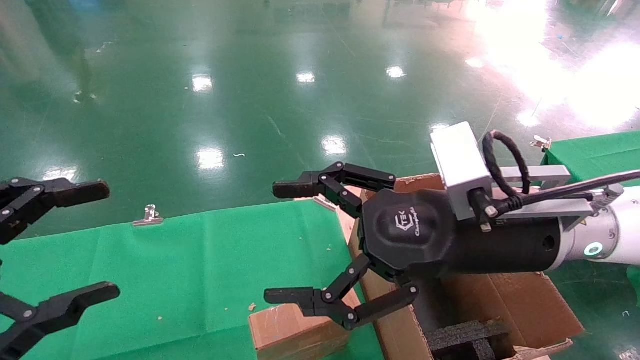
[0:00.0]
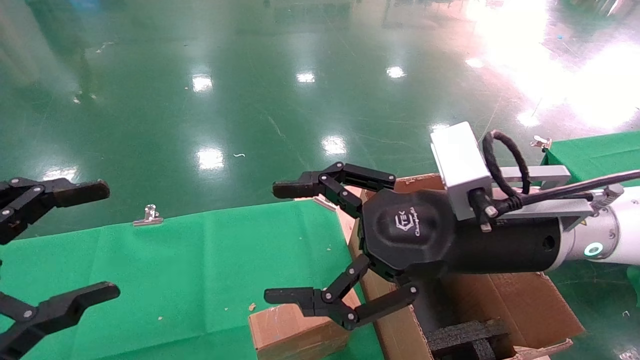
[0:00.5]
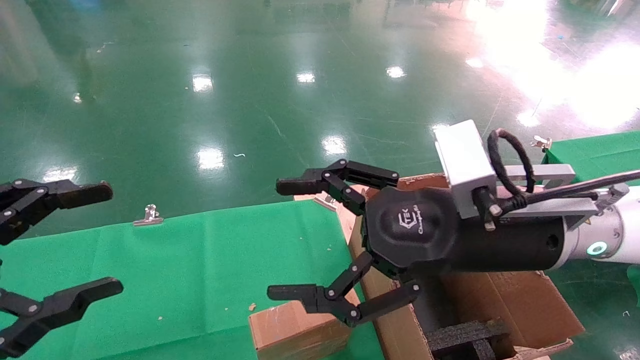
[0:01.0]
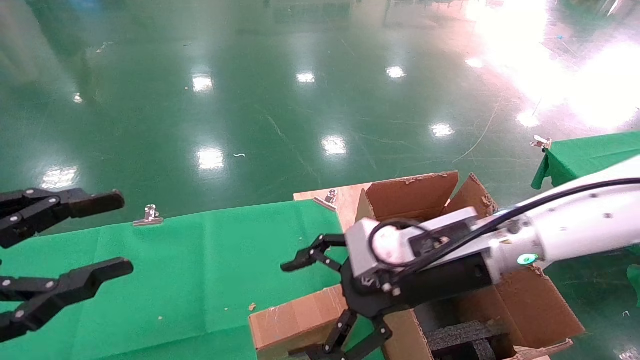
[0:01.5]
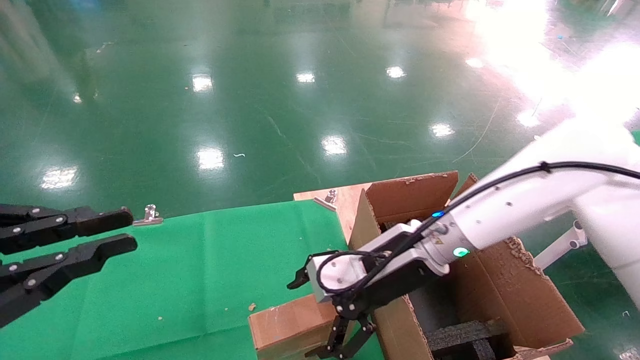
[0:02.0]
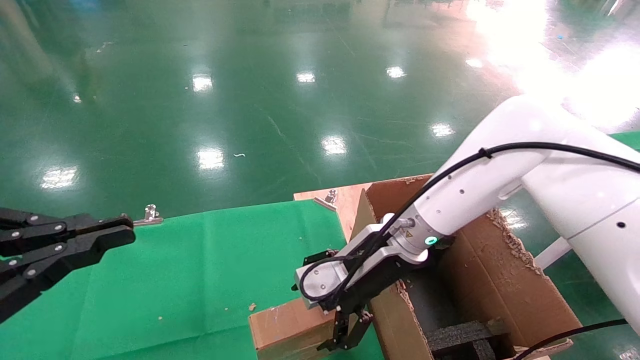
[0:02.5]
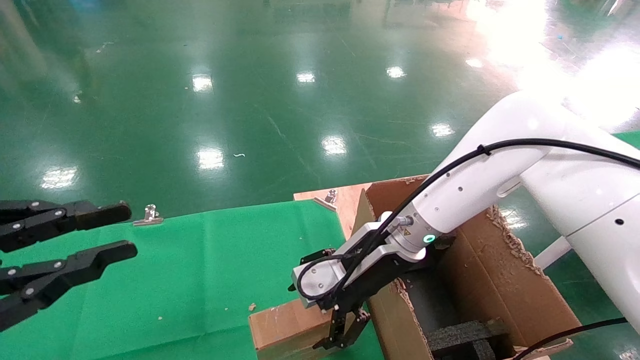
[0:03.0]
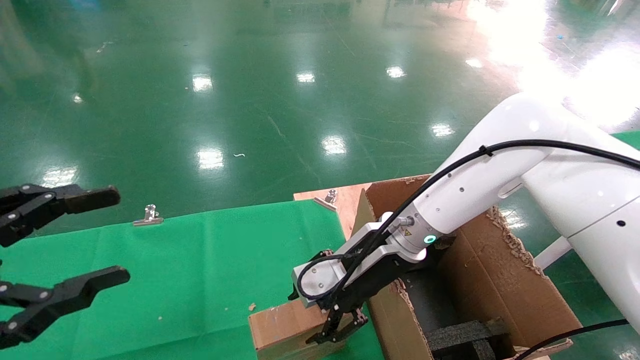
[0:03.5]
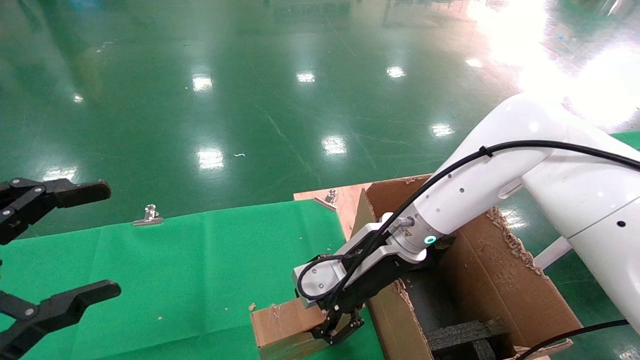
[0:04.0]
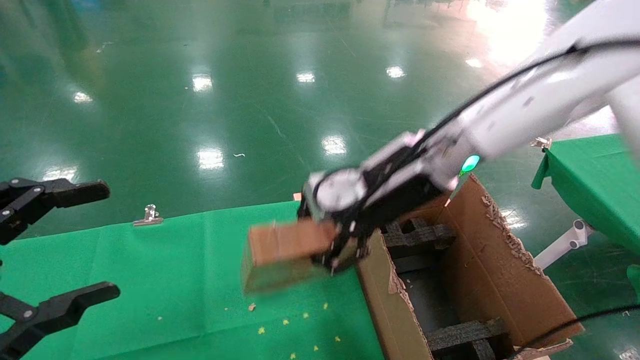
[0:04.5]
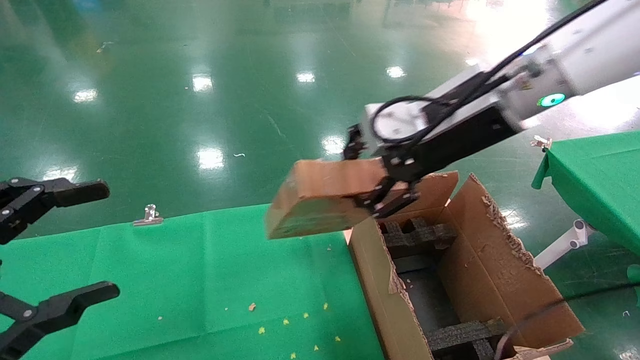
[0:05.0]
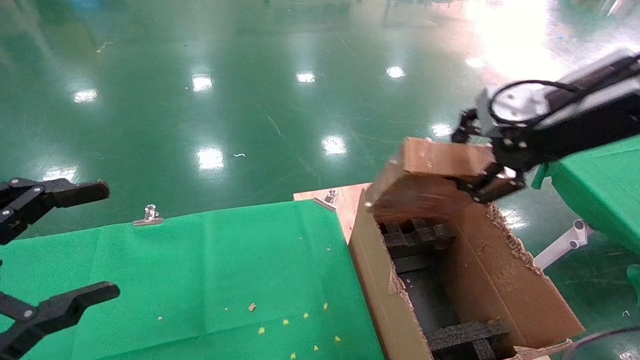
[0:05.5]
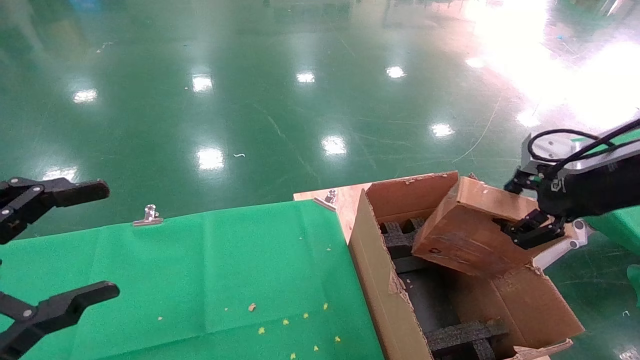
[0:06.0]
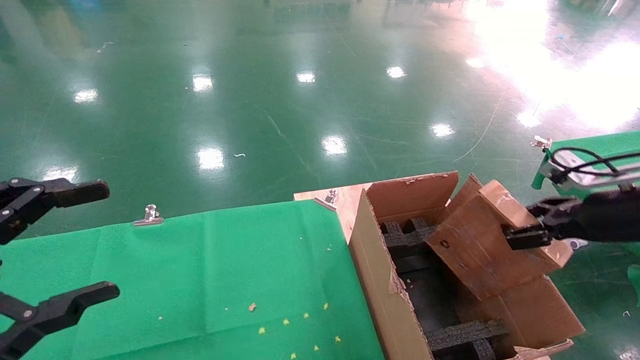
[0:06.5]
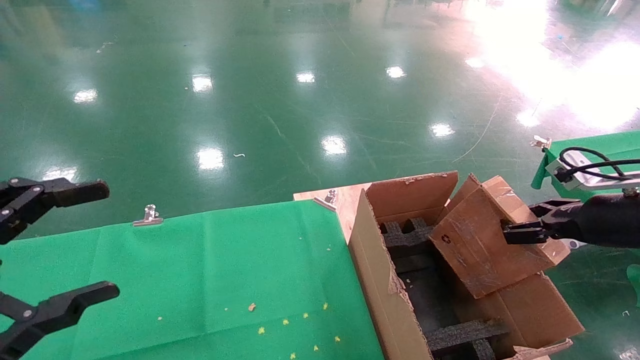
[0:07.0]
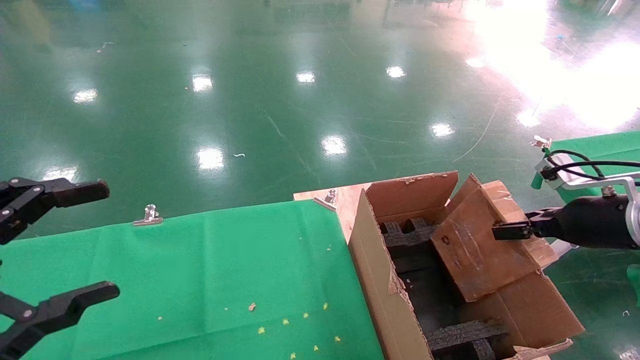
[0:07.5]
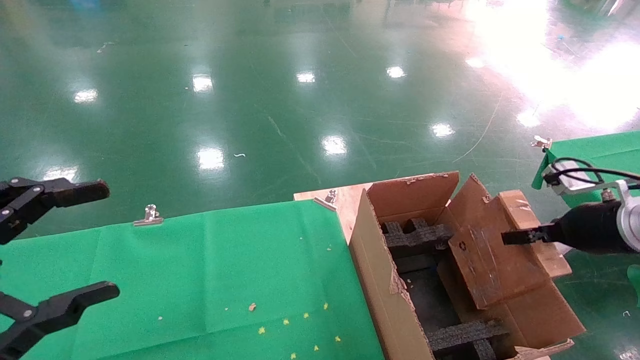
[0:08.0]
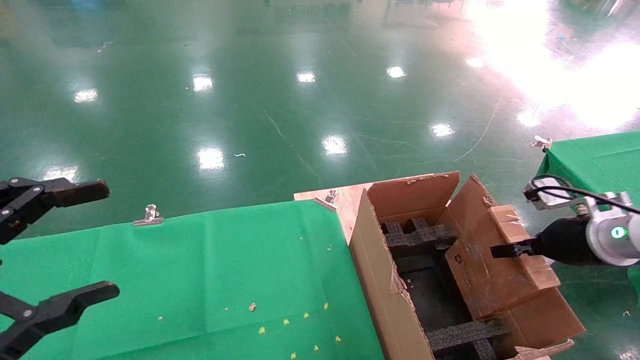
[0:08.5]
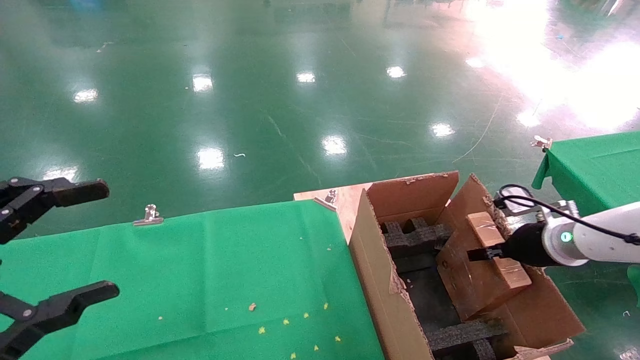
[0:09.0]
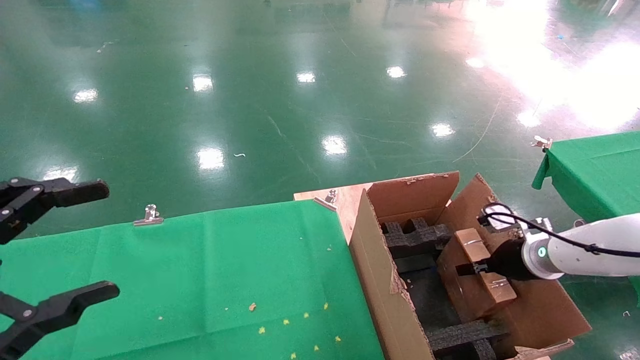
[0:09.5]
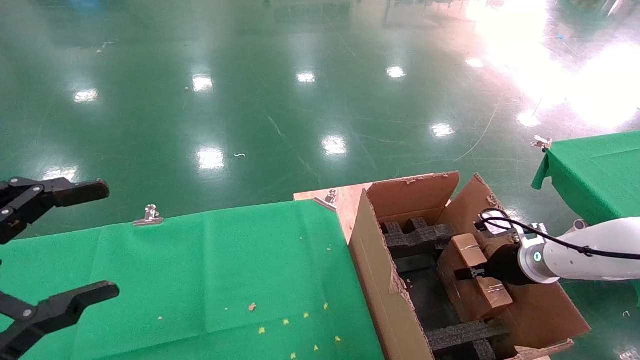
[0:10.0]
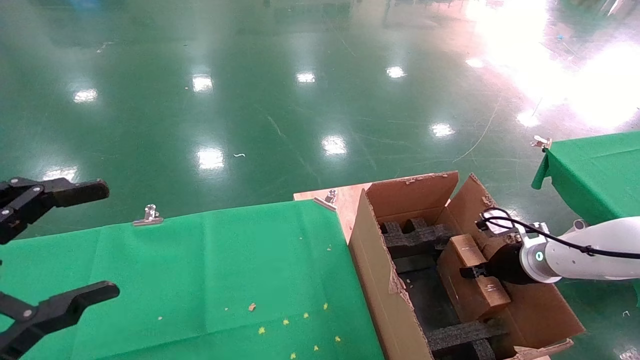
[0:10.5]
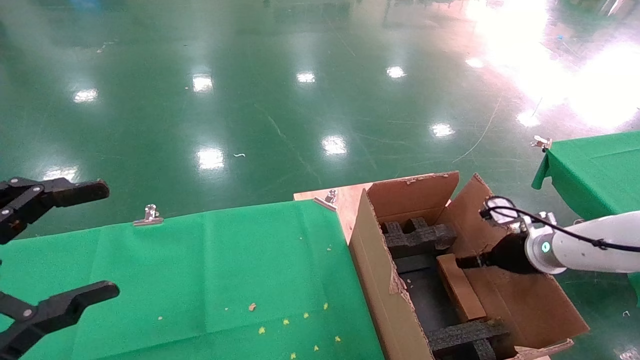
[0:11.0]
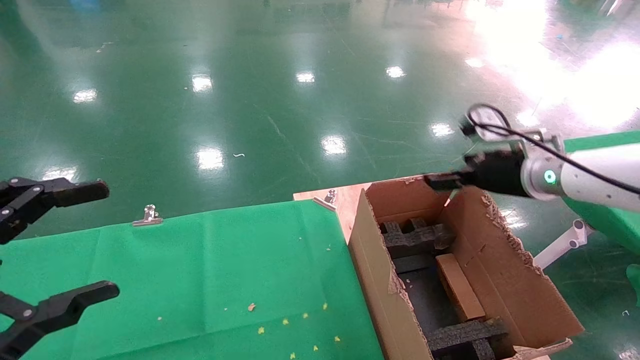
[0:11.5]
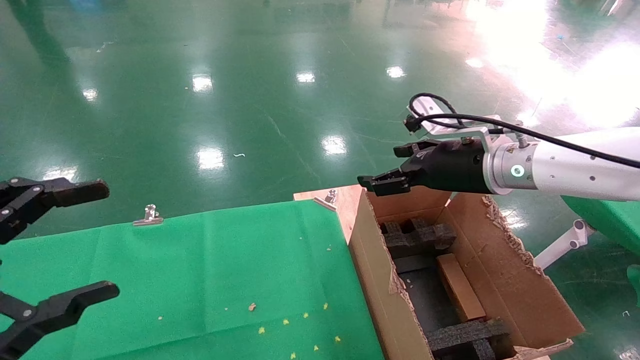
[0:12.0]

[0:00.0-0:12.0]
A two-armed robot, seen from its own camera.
Task of the whole recording: using a robotic arm to pick up a cardboard box and palace it the carton.
Step, 0:01.5 to 0:03.5: Pick up the mouse and the power cord paper box.
Step, 0:04.0 to 0:12.0: Place the mouse and the power cord paper box into the container.
0:00.0 to 0:02.0: The left gripper closes up; the right gripper is displaced forward and downward by some 10 cm.
0:02.0 to 0:04.0: The left gripper opens up, while the right gripper closes its fingers.
0:04.0 to 0:06.0: The right gripper moves to the right and upward, some 30 cm.
0:06.0 to 0:08.0: The right gripper is displaced downward by about 10 cm.
0:08.0 to 0:10.0: The right gripper travels downward and forward by some 15 cm.
0:10.0 to 0:12.0: The right gripper shifts about 25 cm upward and to the left, and opens up.

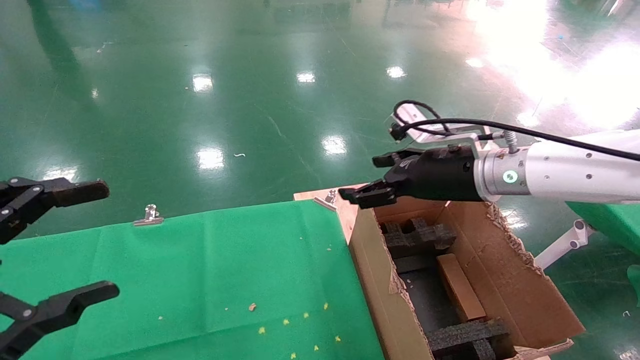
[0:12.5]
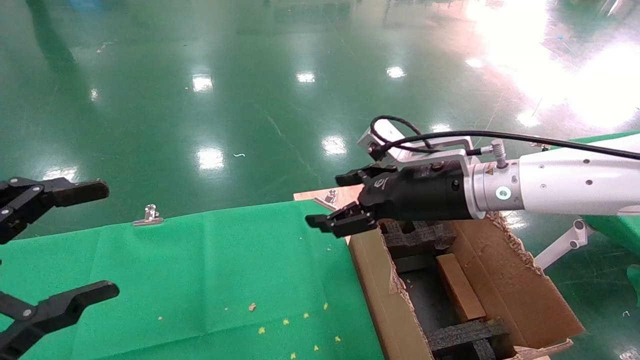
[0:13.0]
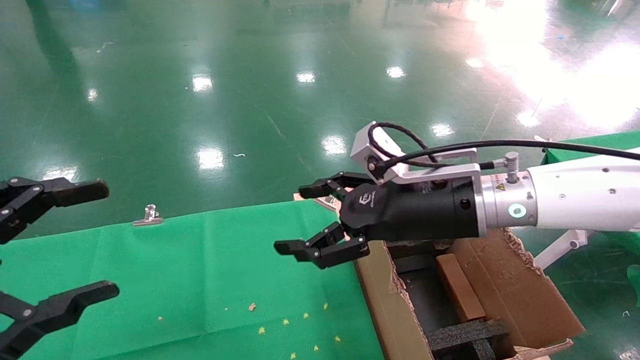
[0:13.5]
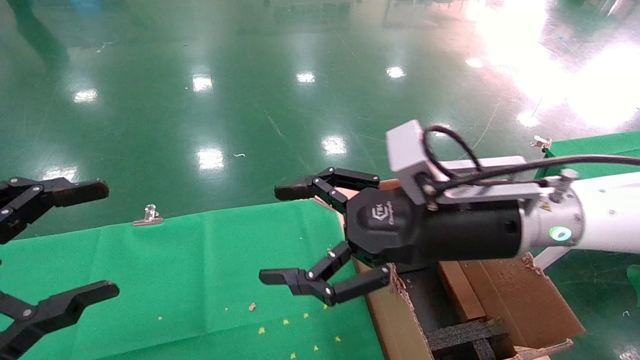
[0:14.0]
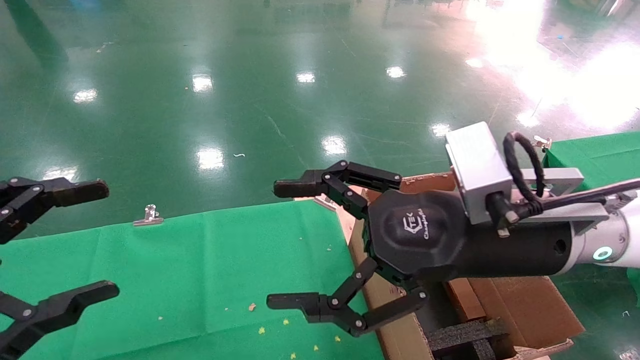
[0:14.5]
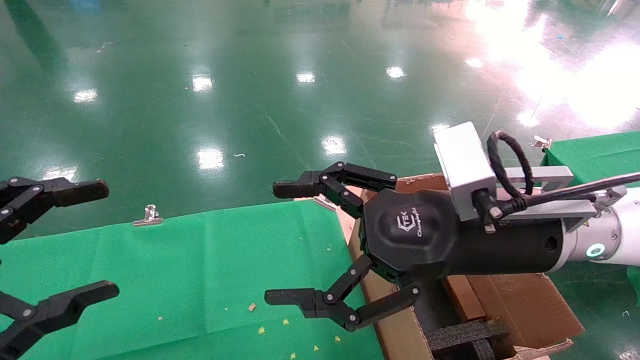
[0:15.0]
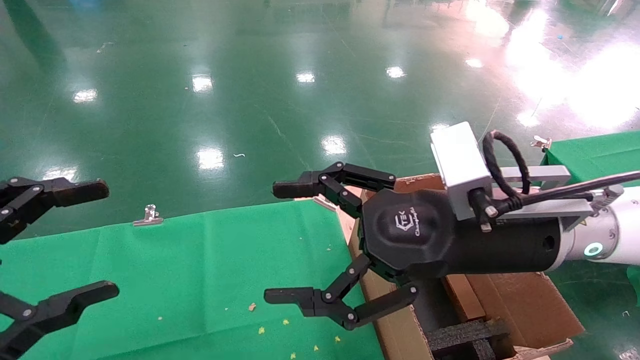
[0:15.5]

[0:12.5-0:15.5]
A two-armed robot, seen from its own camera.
Task of the whole recording: using a robotic arm to pick up a cardboard box and palace it the carton.
0:12.5 to 0:14.0: The right gripper heads backward and to the left, covering about 10 cm.
0:14.0 to 0:15.5: The grippers make only small movements.

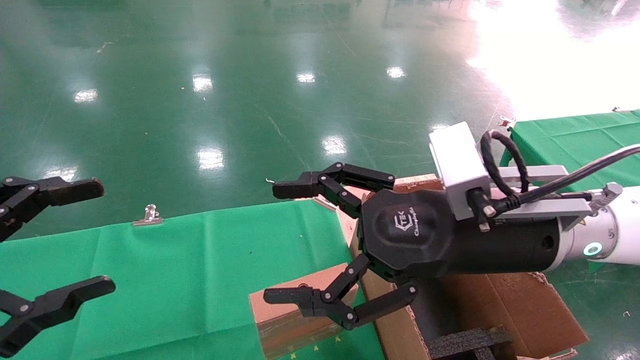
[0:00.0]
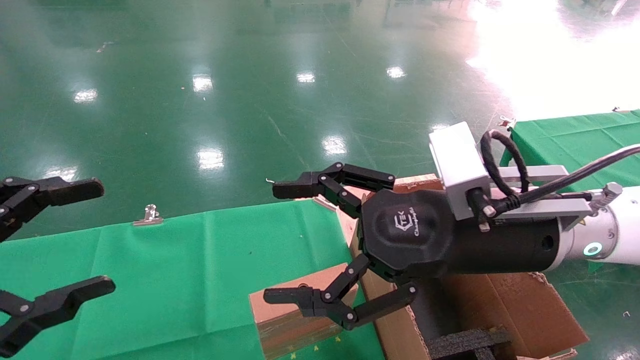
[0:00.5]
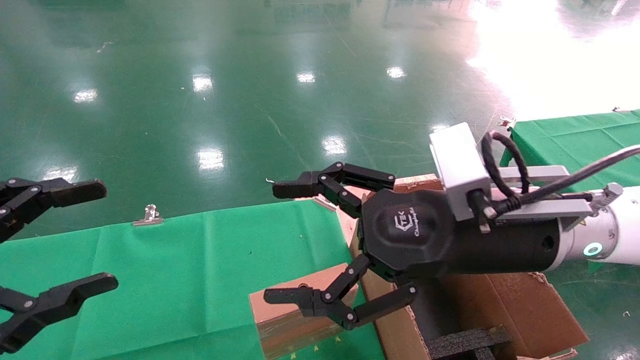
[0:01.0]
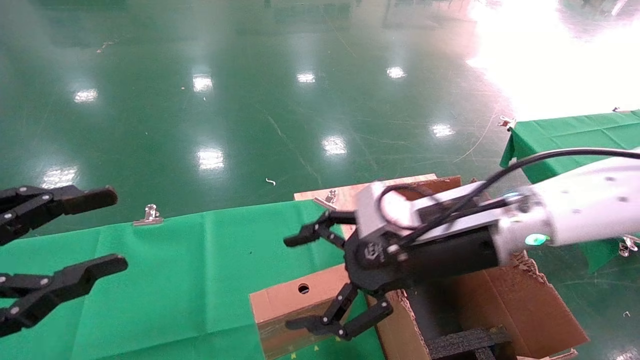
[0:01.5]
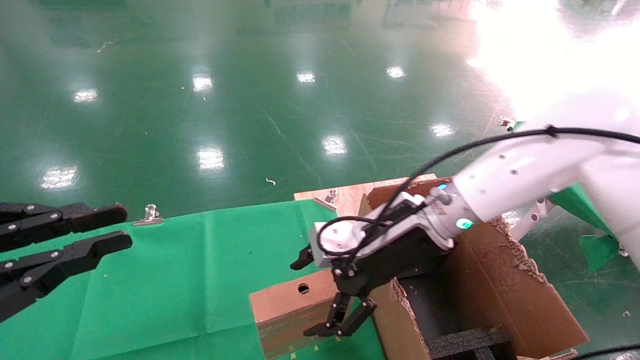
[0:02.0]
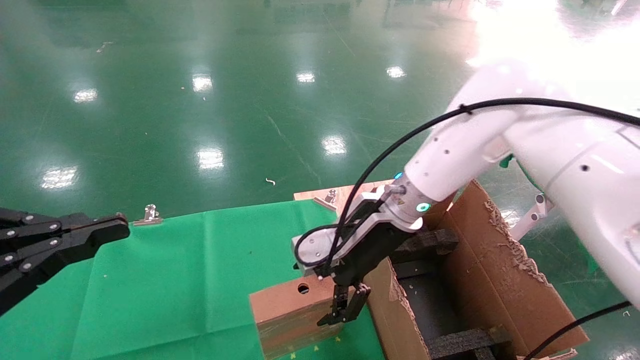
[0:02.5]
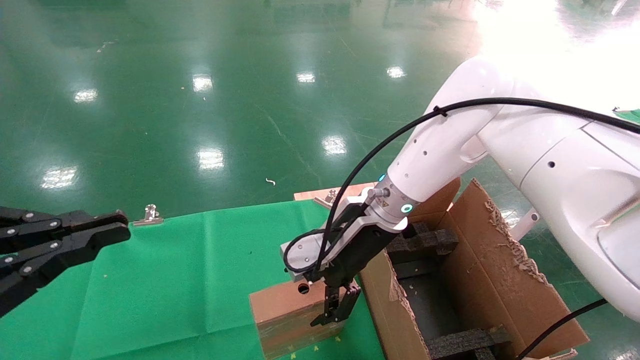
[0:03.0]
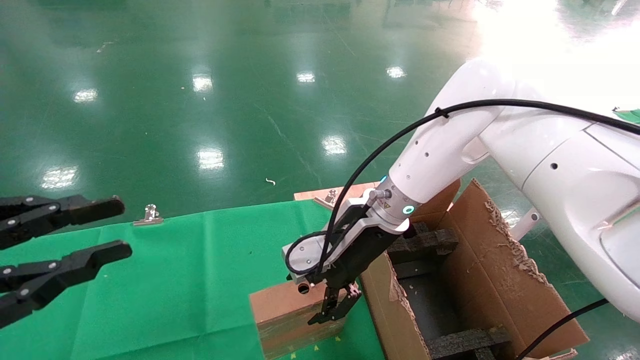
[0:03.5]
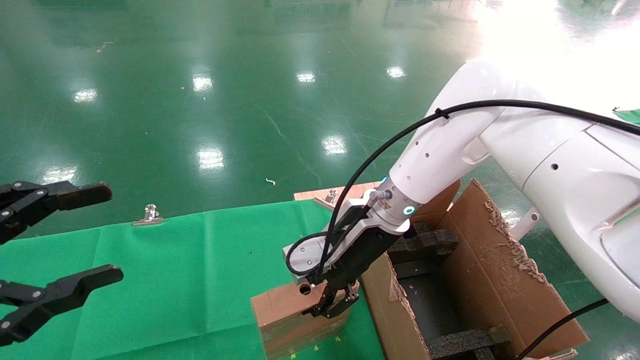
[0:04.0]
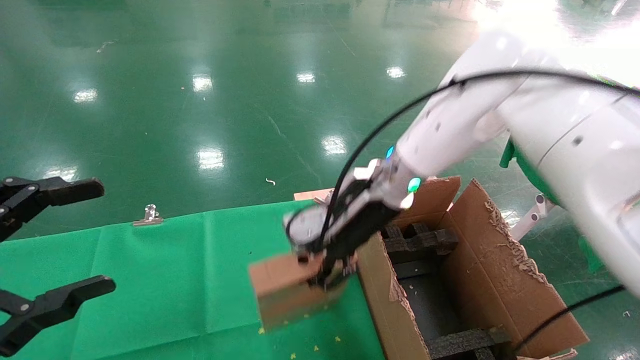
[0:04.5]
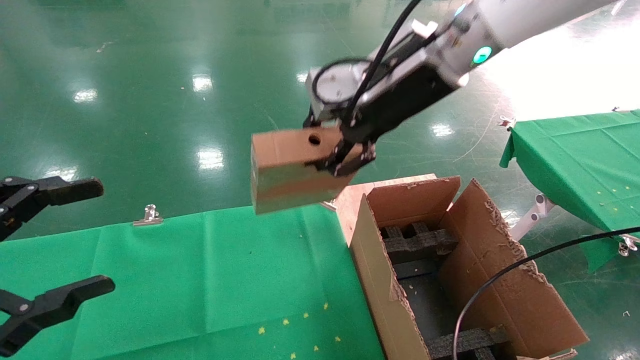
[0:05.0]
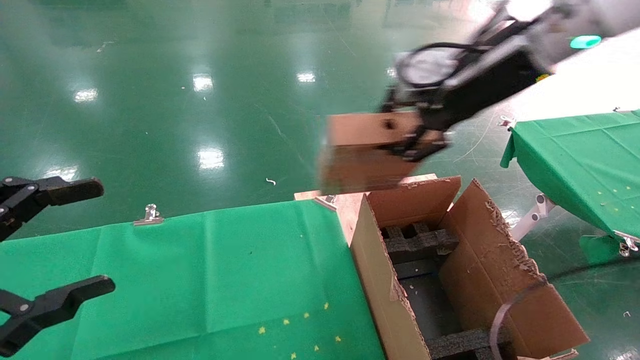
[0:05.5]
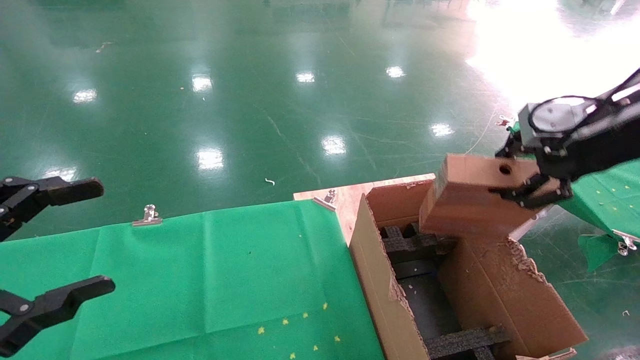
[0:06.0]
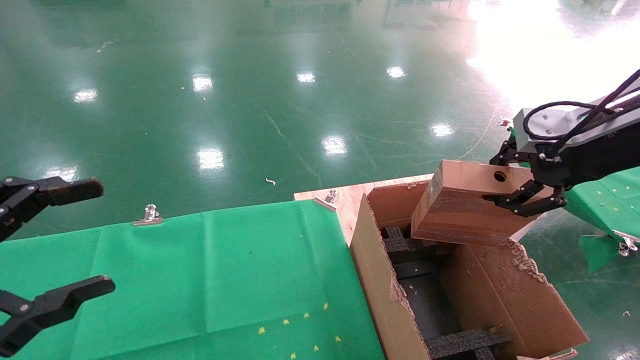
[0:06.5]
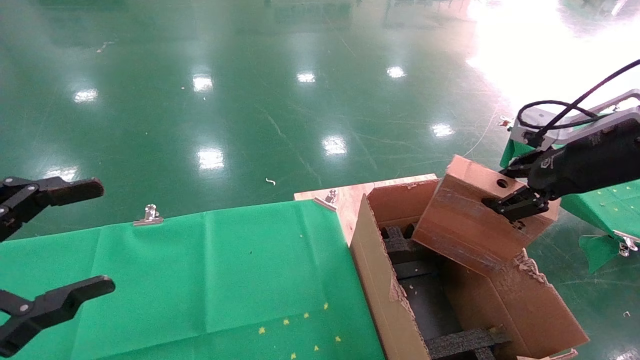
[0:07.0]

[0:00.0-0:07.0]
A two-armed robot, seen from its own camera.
Task of the whole recording: using a robotic arm to pick up a cardboard box and palace it the carton.
Step, 0:01.5 to 0:04.0: Pick up the mouse and the power cord paper box.
0:00.0 to 0:02.0: The right gripper travels forward by approximately 10 cm. The left gripper closes up.
0:02.0 to 0:03.5: The right gripper shifts by some 5 cm.
0:03.5 to 0:05.0: The right gripper shifts about 20 cm upward, and closes up. The left gripper opens its fingers.
0:05.0 to 0:07.0: The right gripper heads to the right, covering about 25 cm.
